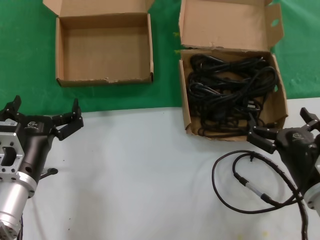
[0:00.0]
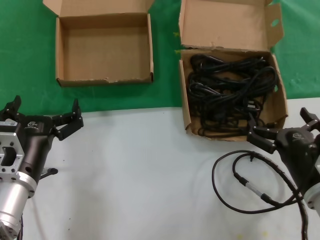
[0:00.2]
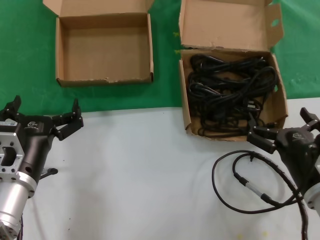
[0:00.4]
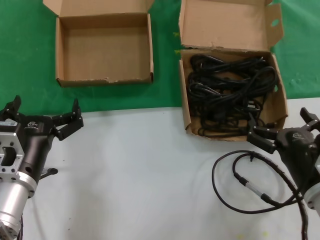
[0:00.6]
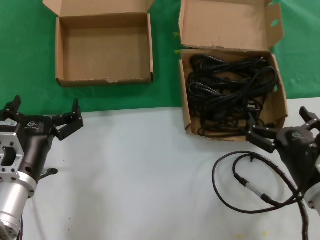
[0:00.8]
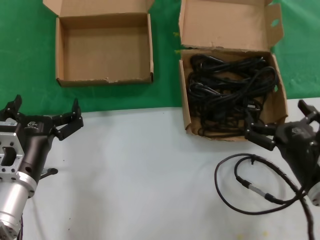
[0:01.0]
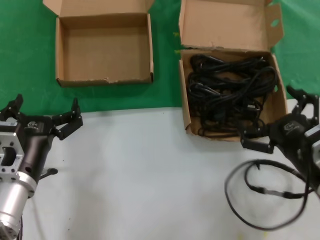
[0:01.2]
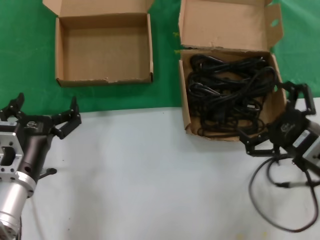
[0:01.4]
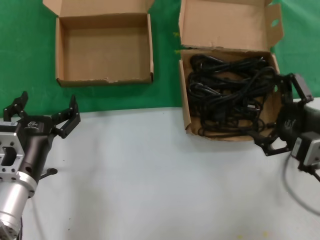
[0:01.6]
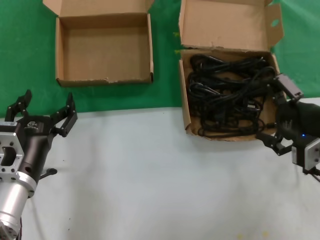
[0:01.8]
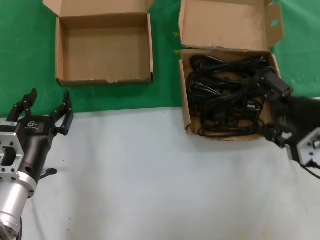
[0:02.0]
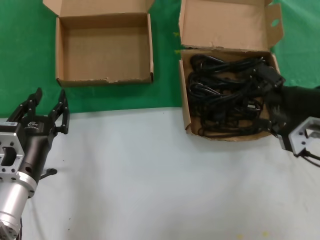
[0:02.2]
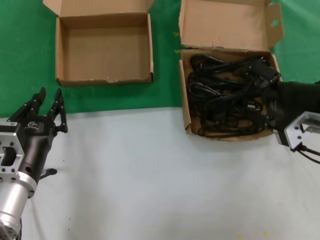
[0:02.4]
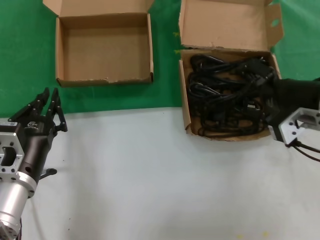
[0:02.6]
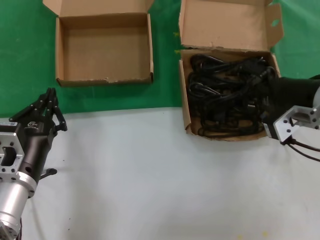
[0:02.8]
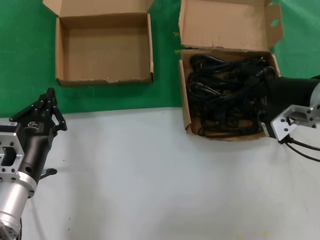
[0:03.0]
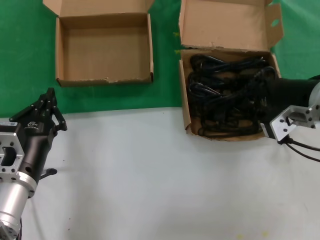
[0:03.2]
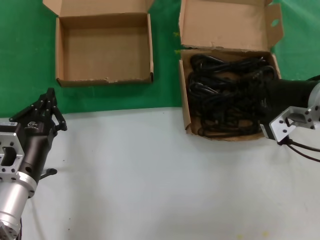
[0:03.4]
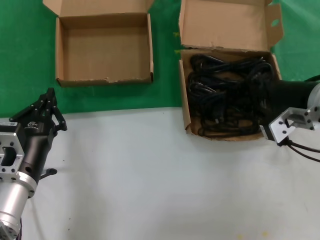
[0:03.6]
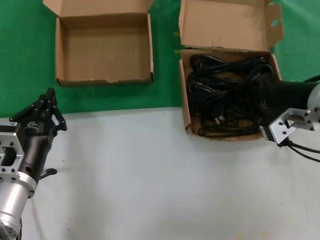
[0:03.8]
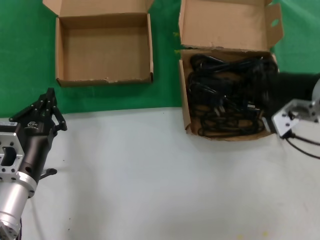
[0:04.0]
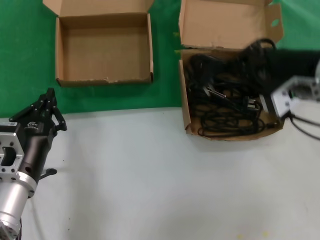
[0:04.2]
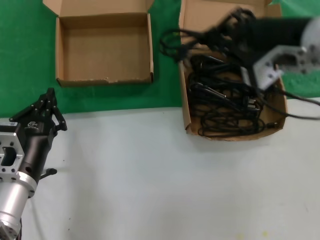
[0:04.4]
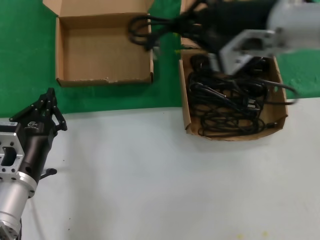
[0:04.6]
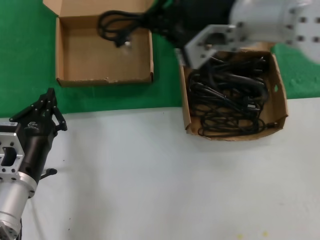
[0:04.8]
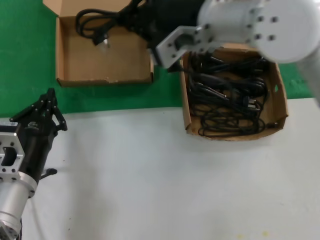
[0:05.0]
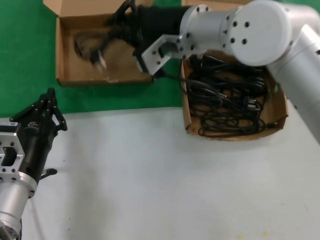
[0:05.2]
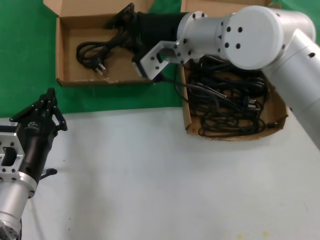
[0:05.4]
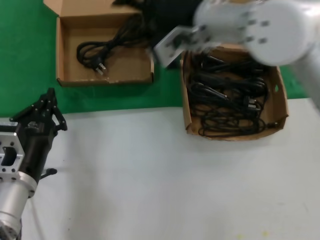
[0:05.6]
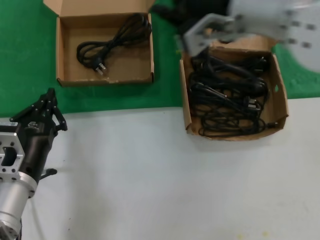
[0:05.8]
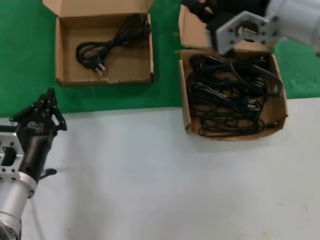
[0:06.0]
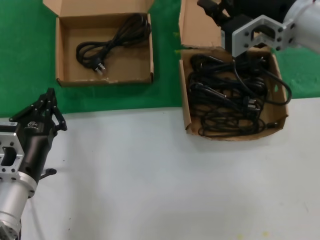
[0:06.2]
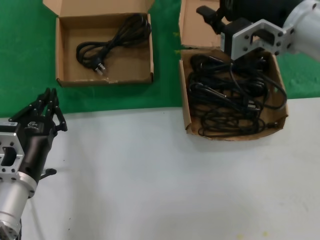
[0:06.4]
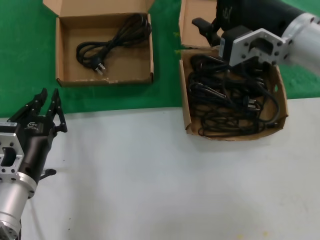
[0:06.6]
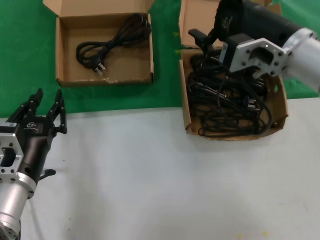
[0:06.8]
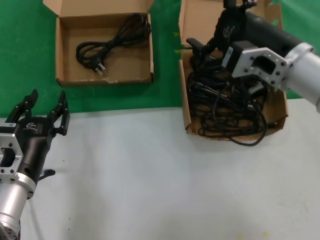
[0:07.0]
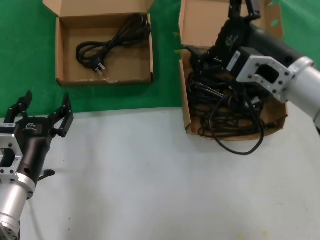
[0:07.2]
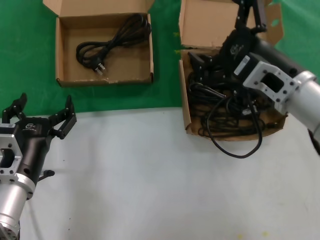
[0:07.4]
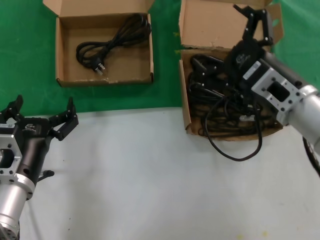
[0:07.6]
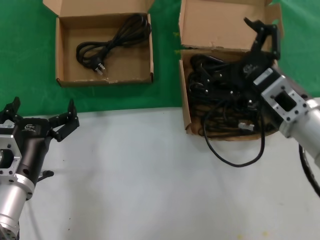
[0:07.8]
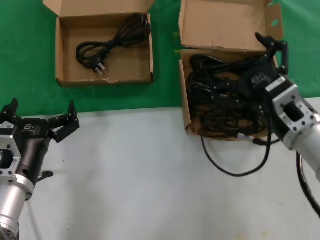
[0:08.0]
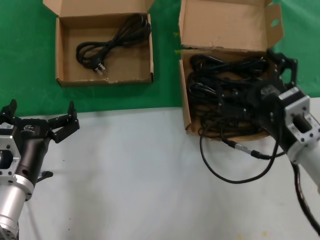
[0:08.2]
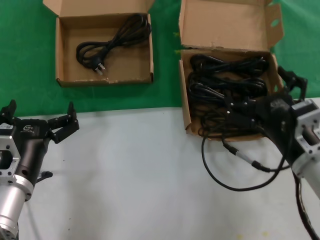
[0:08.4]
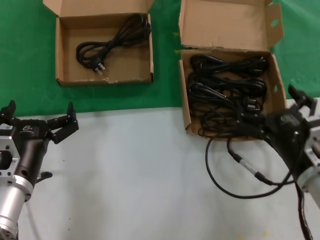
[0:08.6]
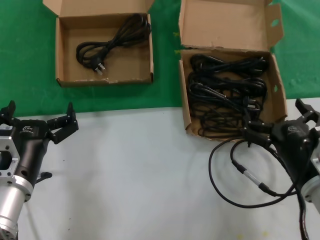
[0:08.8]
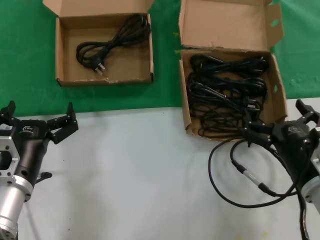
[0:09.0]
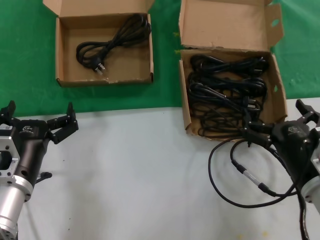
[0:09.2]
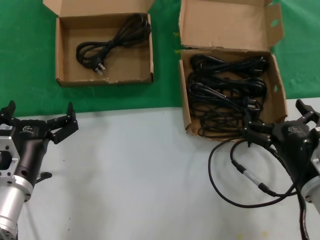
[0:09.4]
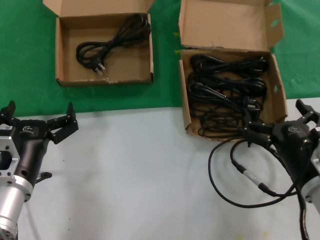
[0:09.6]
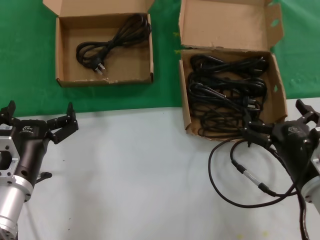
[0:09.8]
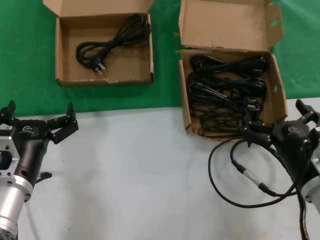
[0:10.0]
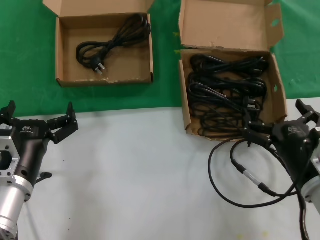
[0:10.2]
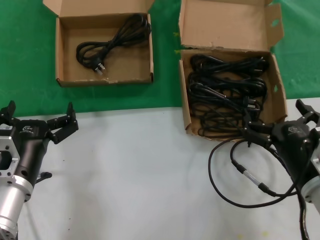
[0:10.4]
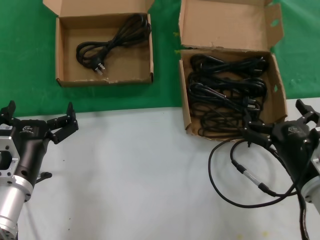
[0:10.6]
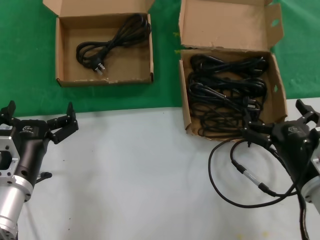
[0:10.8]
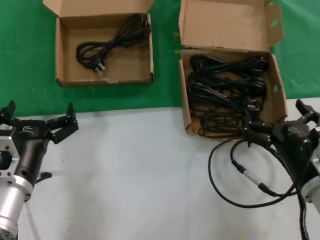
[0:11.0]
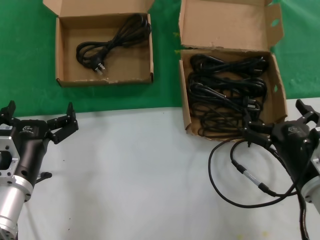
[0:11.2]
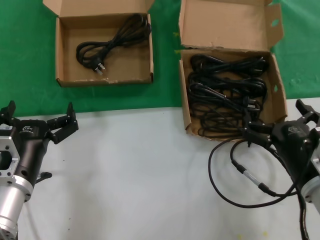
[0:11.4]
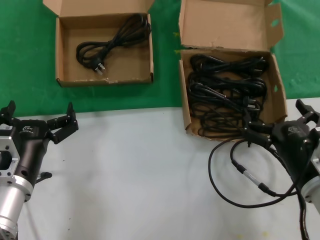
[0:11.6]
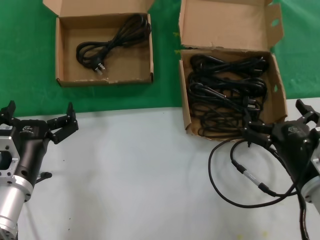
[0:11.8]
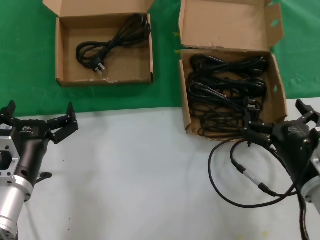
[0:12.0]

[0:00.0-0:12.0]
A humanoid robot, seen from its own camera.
Task of the whole recording: take the parts from the box containing them and put them into an empty box.
Step, 0:00.0 to 0:03.4: Grasp the data cable.
Step, 0:03.6 to 0:05.2: Place the data cable in the another box.
0:00.0 to 0:01.6: The right hand moves upward, roughly 10 cm.
0:01.6 to 0:03.0: The right hand heads forward and upward, covering approximately 10 cm.
0:03.0 to 0:04.4: The right hand shifts about 10 cm upward.
0:04.4 to 0:06.0: The right hand reaches approximately 15 cm to the left, then returns.
0:06.0 to 0:07.6: The right hand moves downward, roughly 15 cm.
0:07.6 to 0:09.0: The right hand is displaced downward and backward by approximately 15 cm.
0:09.0 to 0:12.0: Neither hand changes place.

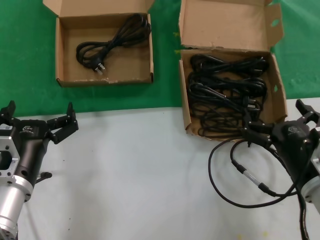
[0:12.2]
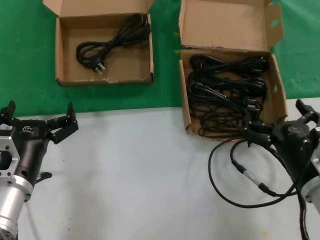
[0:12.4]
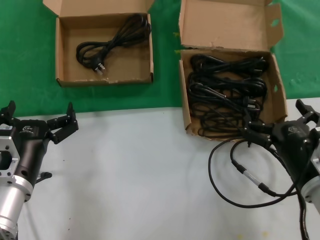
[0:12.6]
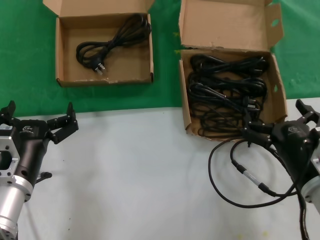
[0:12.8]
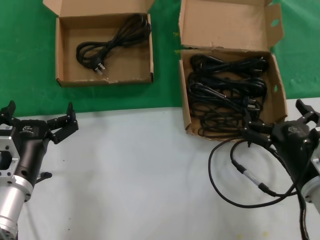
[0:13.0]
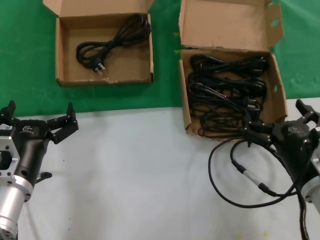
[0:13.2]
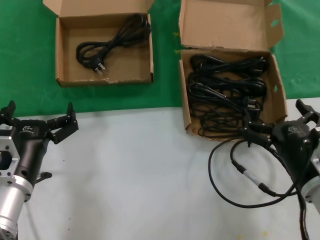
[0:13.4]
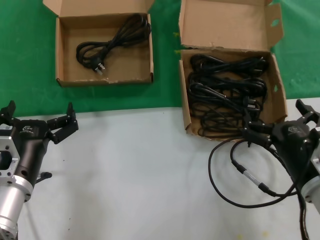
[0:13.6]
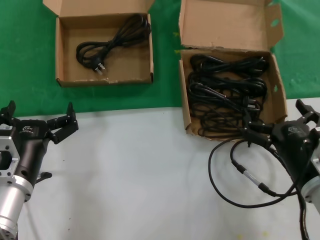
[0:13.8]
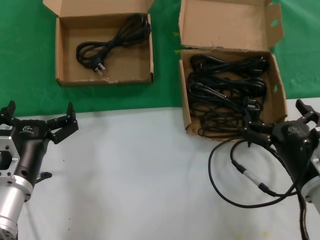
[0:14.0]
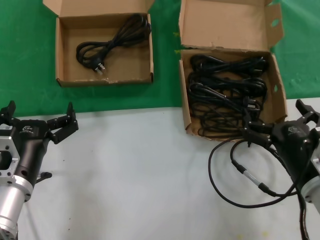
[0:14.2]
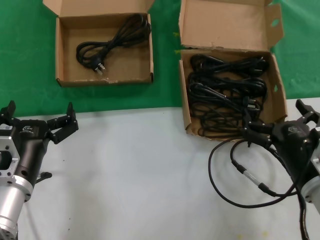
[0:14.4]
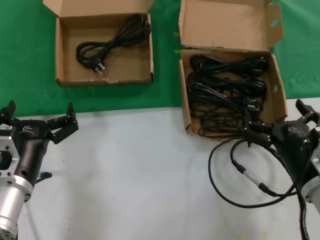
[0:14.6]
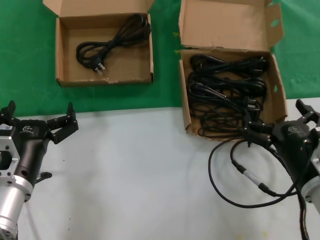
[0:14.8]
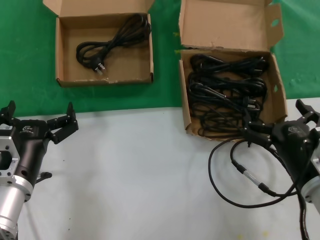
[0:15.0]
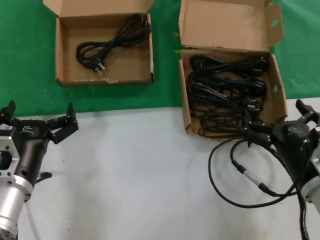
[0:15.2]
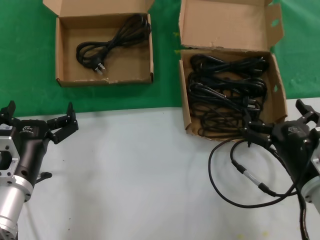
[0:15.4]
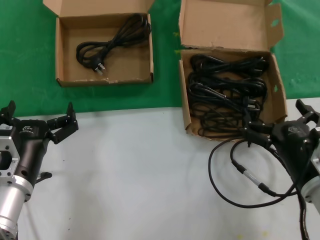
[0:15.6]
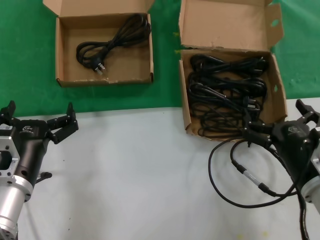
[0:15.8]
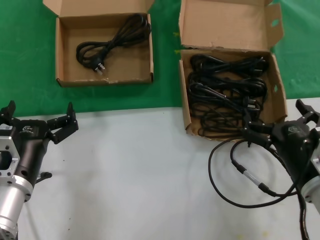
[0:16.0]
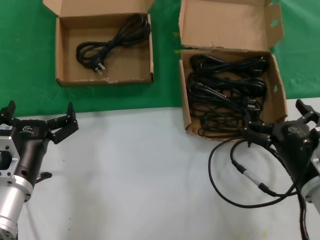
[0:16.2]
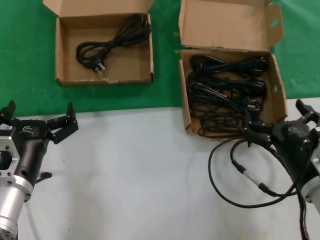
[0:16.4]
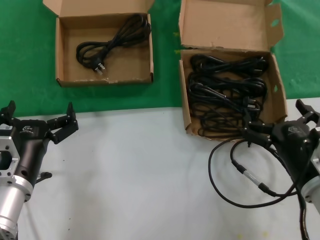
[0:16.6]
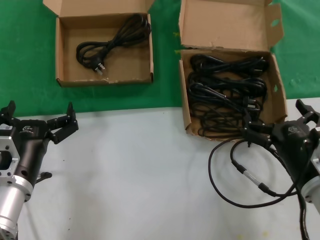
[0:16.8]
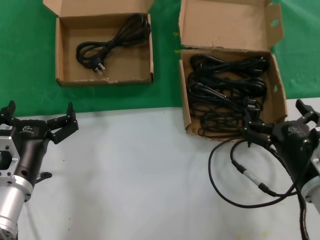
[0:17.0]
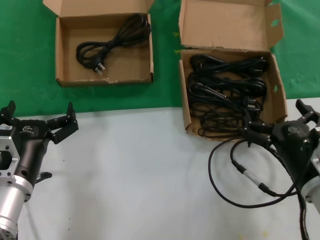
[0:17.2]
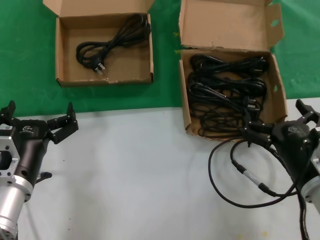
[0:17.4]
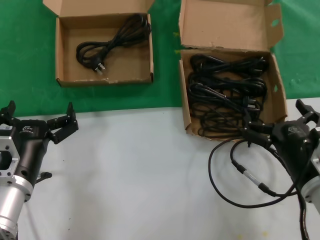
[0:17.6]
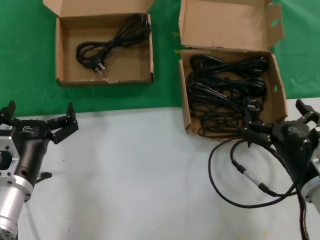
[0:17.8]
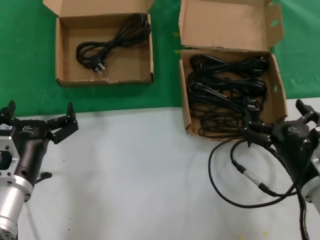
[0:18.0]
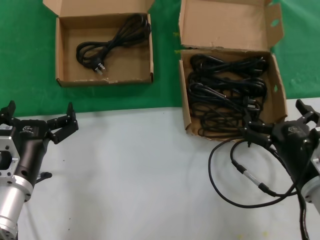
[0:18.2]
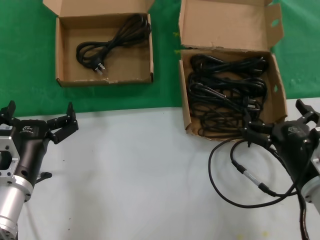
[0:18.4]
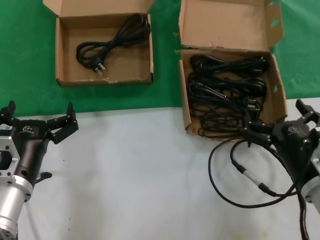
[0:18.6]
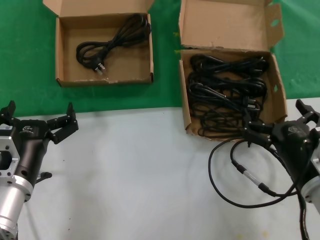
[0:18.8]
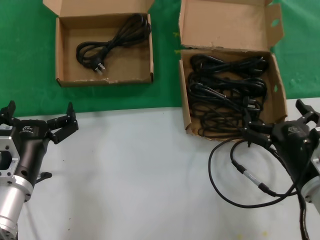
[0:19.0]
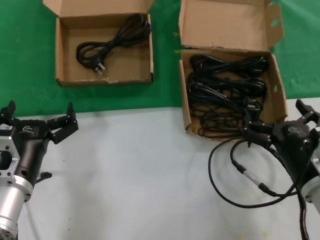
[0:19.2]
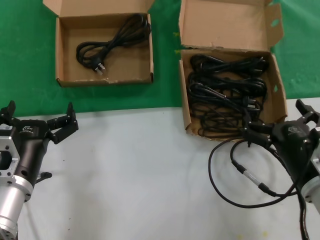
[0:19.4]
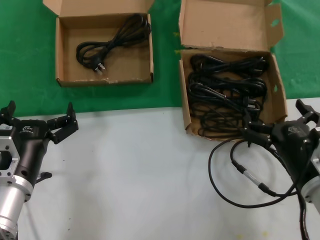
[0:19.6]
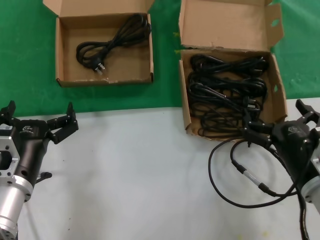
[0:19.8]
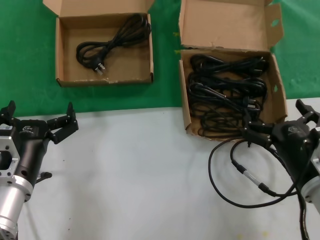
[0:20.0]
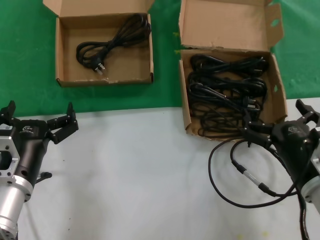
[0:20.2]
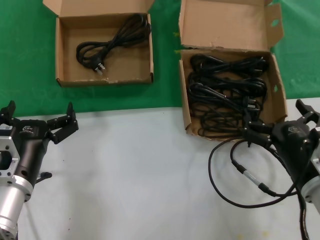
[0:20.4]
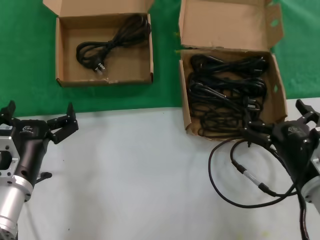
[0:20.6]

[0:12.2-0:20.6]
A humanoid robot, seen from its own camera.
Task of the whole recording: take the parts from the box containing them and put them into an empty box.
0:12.2 to 0:20.6: Both hands stay put.

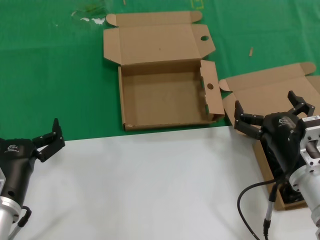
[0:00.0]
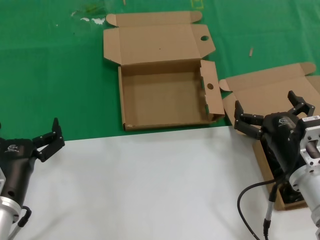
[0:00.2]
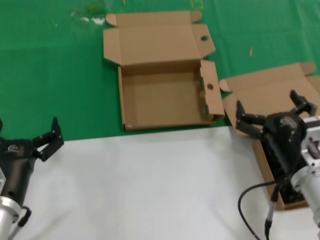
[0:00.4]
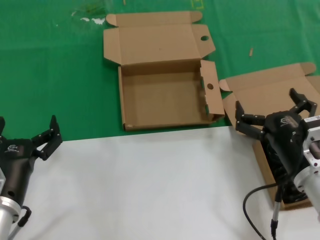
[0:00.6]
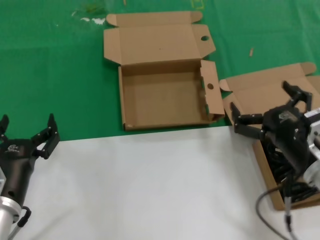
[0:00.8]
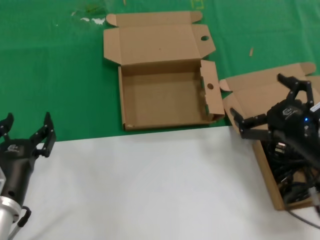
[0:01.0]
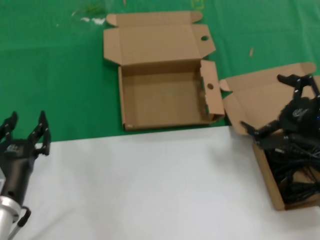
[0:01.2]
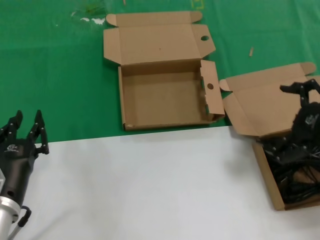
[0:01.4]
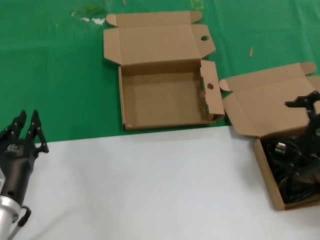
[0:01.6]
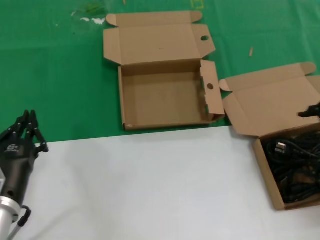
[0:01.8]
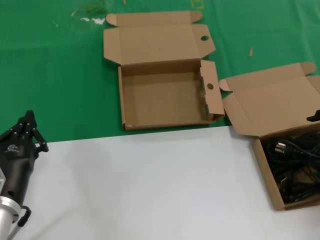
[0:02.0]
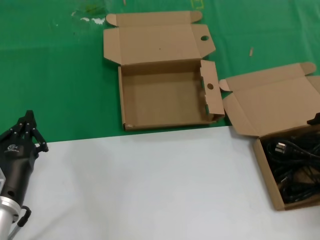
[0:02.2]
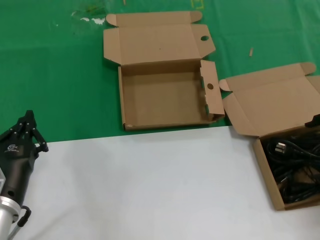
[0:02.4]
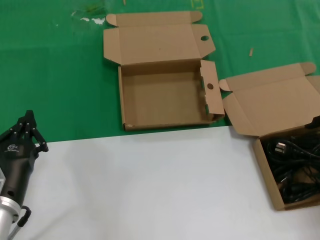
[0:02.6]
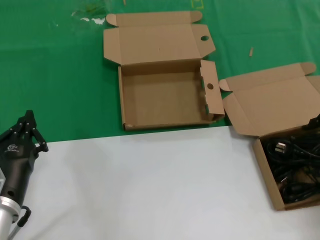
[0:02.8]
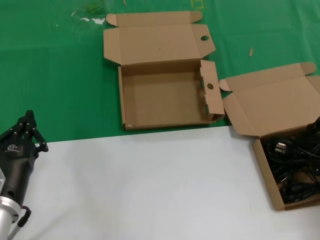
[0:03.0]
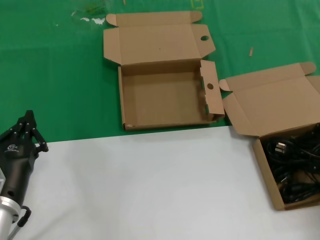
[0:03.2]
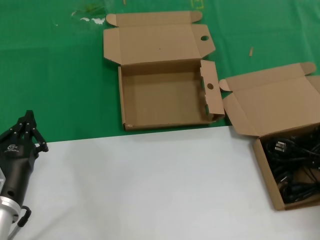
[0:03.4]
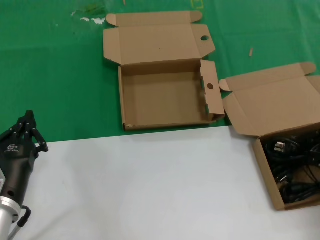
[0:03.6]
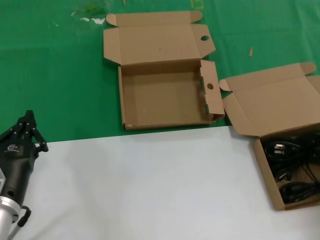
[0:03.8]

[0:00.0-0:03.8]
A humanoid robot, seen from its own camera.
Task of the whole recording: take the parts from the box containing them and put them into an empty box.
Step, 0:00.0 to 0:03.6: Grasp the data cable.
0:00.0 to 0:01.2: The right hand shifts approximately 15 cm upward and to the right.
0:01.2 to 0:02.6: The right hand moves to the right, forward and upward, about 15 cm.
